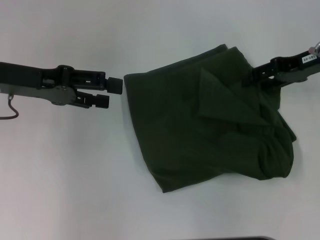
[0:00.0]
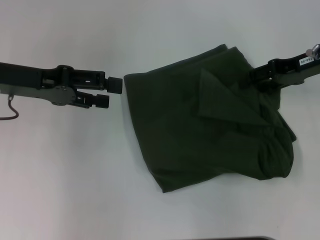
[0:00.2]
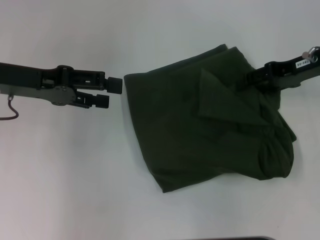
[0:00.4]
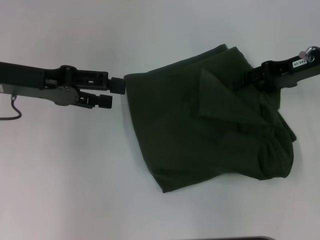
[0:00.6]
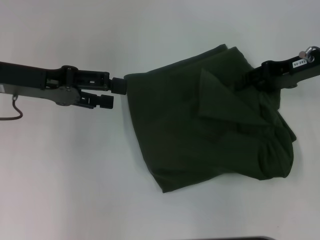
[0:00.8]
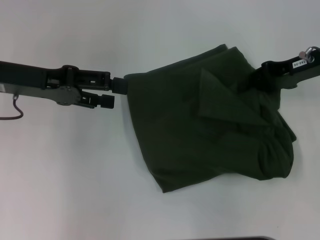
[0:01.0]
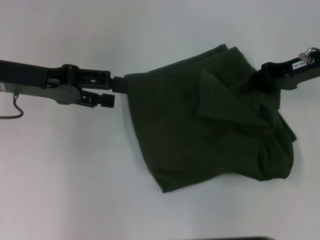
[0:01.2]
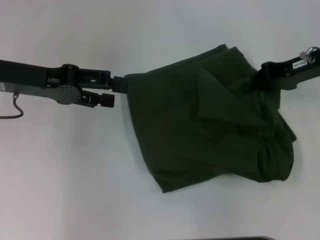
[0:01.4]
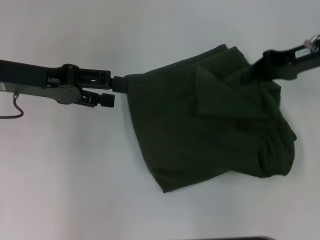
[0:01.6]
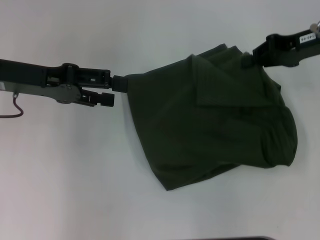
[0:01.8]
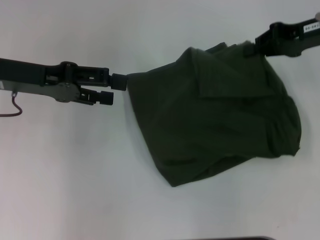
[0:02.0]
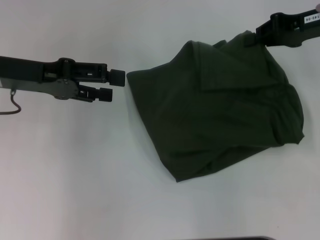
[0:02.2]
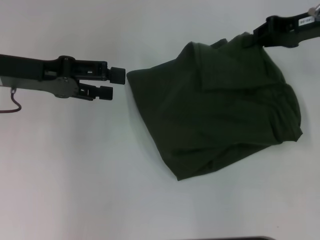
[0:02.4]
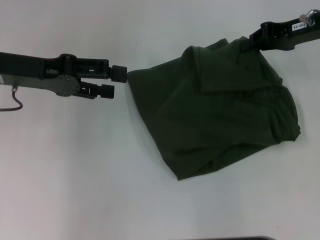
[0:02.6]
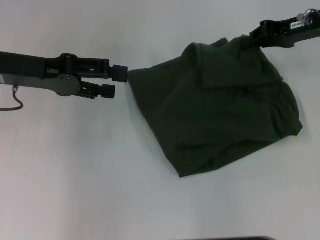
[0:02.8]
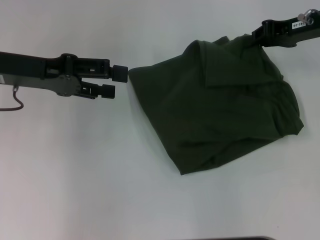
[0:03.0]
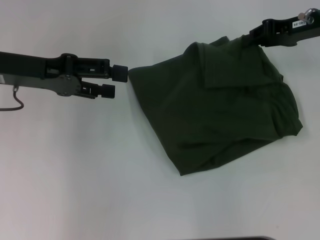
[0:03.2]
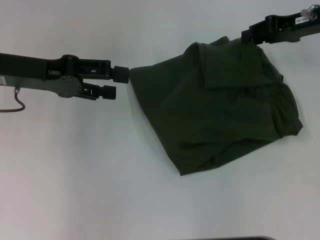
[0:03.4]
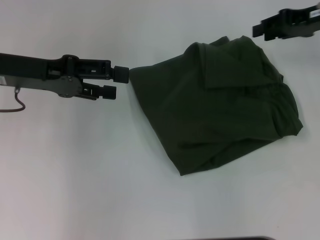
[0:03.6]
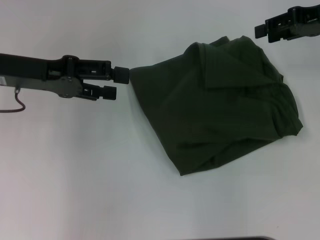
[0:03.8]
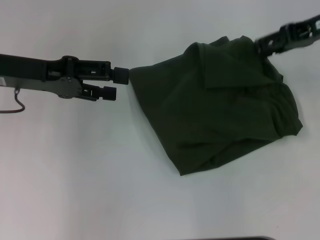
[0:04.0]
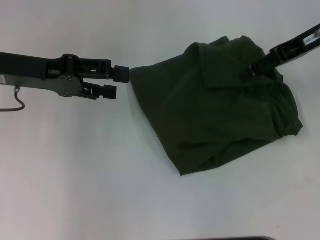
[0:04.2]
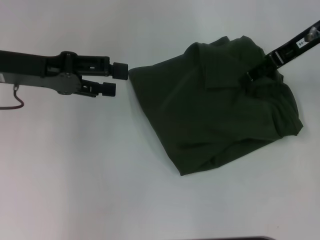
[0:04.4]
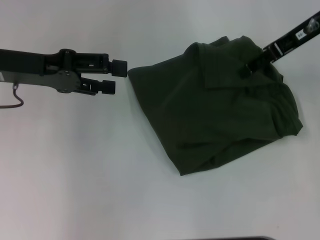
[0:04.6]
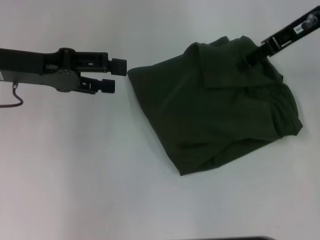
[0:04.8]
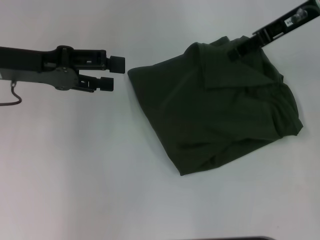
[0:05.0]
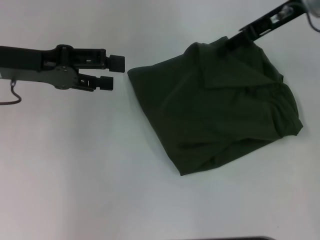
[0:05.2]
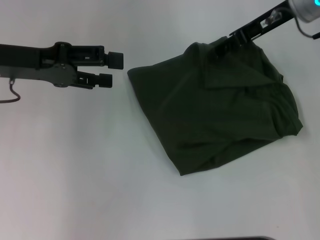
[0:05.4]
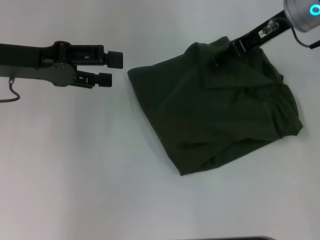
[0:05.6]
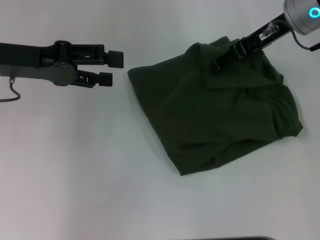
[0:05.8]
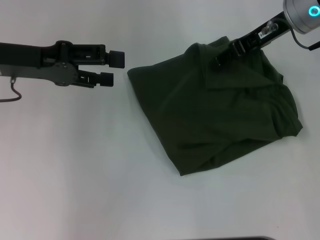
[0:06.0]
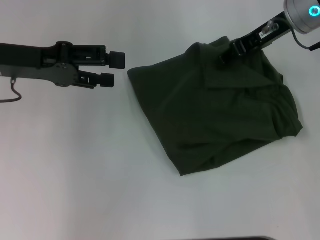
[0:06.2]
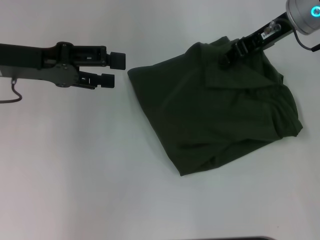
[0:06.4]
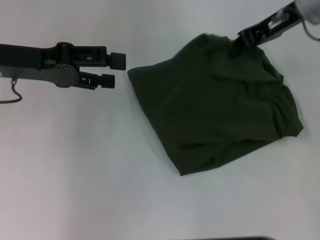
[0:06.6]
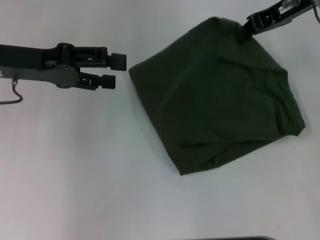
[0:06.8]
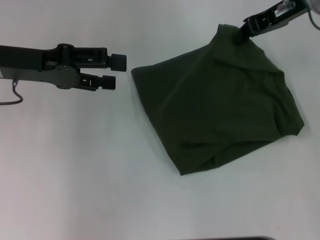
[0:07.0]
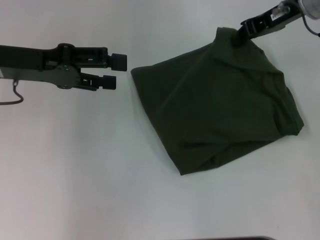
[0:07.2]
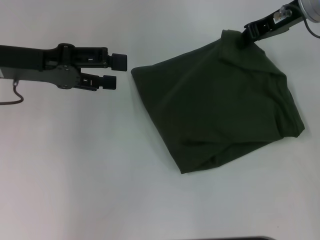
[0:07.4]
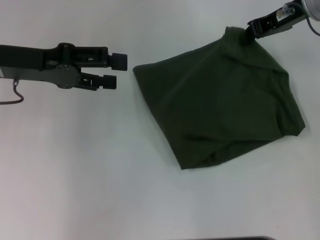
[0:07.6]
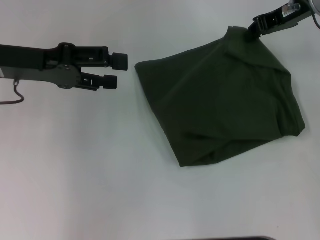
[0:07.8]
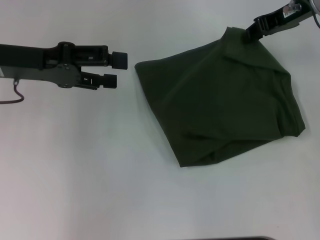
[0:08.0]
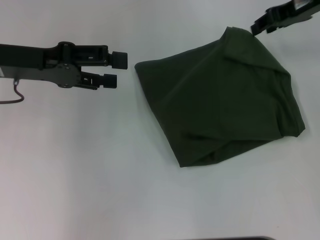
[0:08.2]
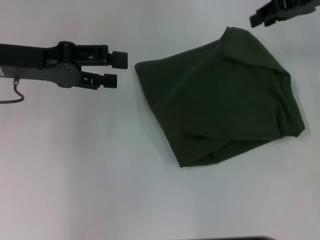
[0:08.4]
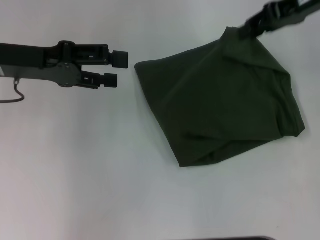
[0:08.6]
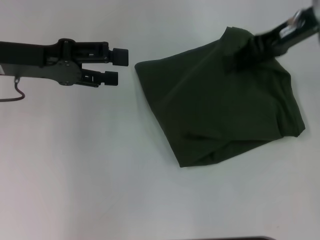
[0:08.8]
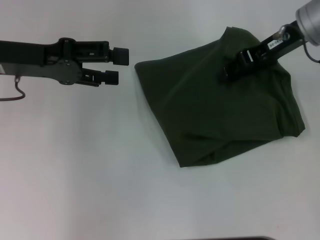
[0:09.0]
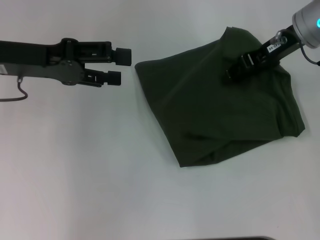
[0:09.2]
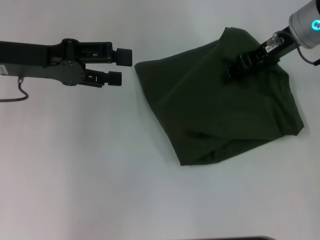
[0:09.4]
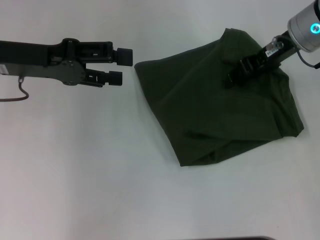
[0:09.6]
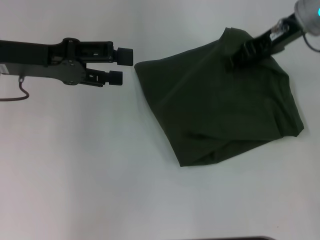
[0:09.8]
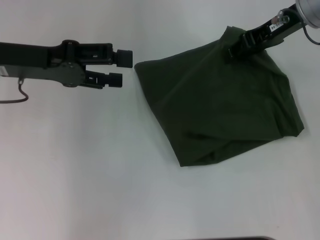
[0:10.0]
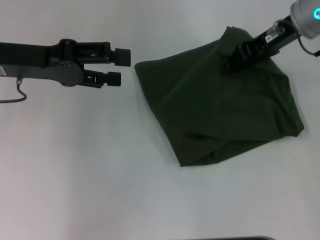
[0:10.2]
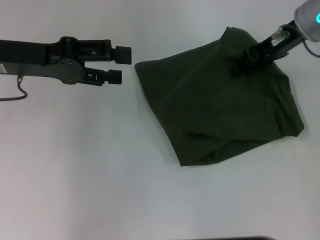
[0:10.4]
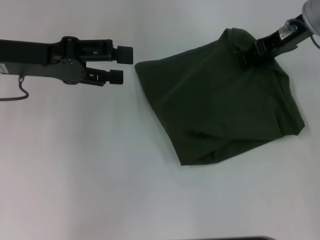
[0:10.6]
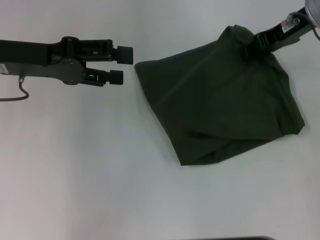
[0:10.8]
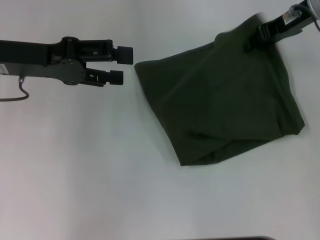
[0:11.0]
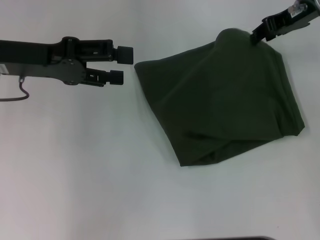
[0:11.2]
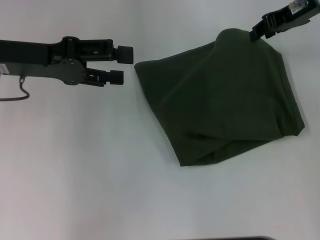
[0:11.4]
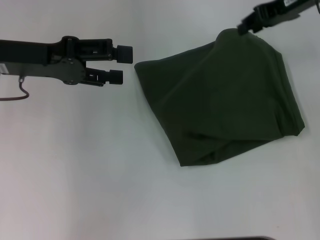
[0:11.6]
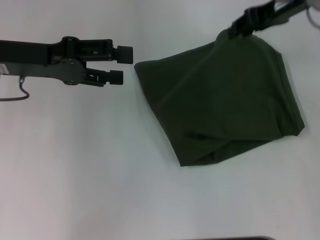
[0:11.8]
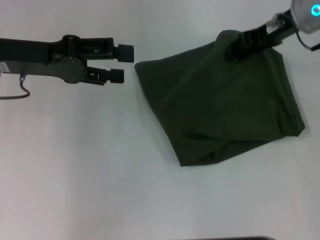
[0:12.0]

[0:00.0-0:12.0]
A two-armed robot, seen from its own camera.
0:00.0 to 0:01.6: The right gripper closes its fingers.
0:03.0 to 0:04.4: The right gripper changes place by some 5 cm, and opens its fingers.
0:04.4 to 0:06.0: The grippers make only small movements.
0:06.0 to 0:07.6: The right gripper closes.
0:07.6 to 0:09.0: The right gripper opens its fingers.
0:09.0 to 0:10.4: The grippers move only a little.
0:10.4 to 0:12.0: The grippers make only small movements.

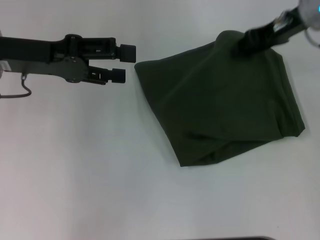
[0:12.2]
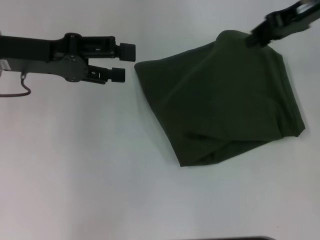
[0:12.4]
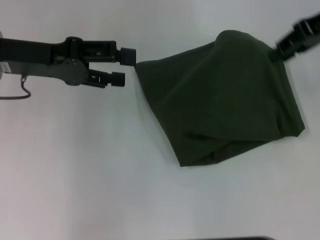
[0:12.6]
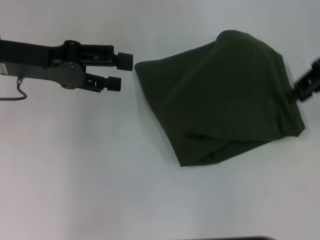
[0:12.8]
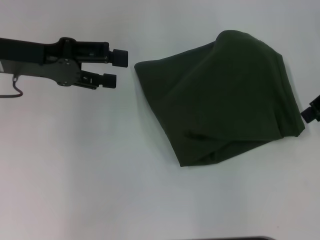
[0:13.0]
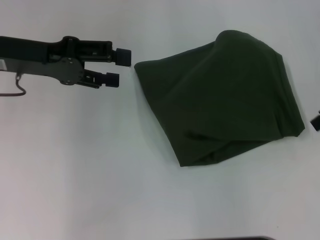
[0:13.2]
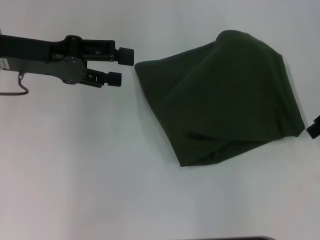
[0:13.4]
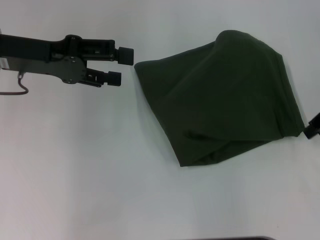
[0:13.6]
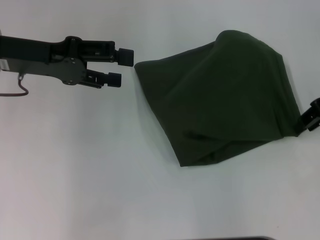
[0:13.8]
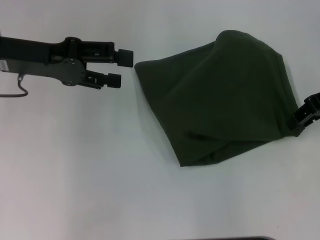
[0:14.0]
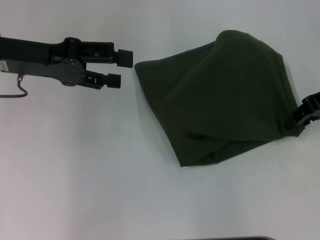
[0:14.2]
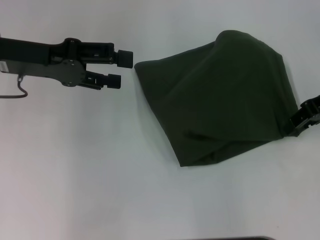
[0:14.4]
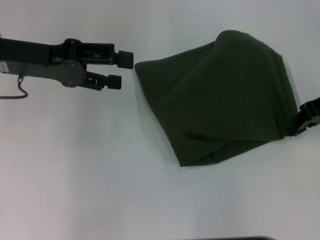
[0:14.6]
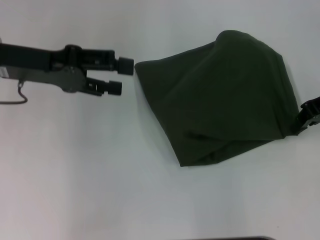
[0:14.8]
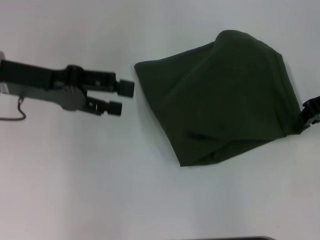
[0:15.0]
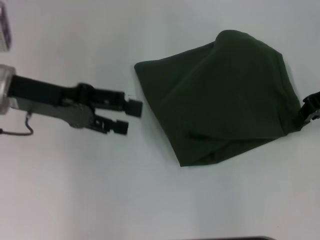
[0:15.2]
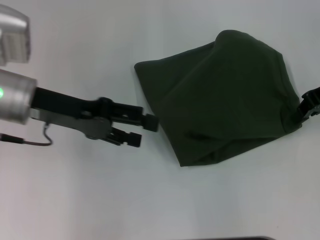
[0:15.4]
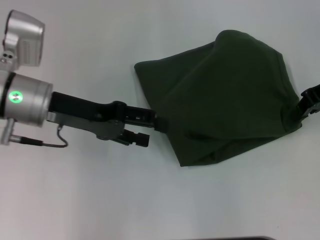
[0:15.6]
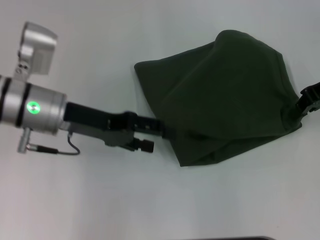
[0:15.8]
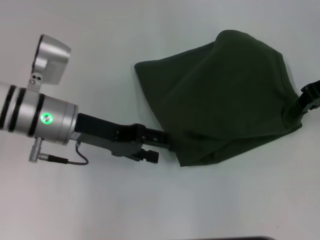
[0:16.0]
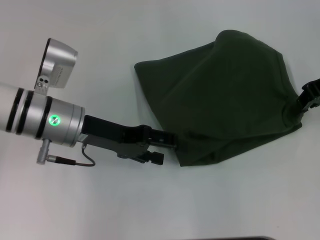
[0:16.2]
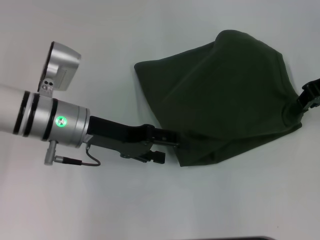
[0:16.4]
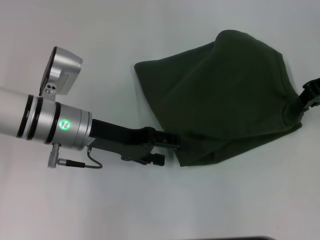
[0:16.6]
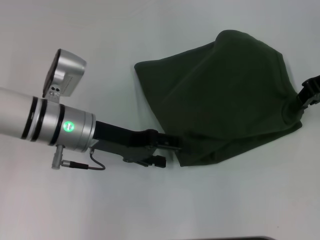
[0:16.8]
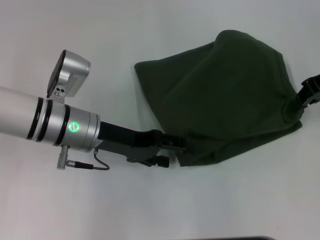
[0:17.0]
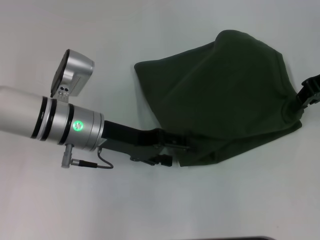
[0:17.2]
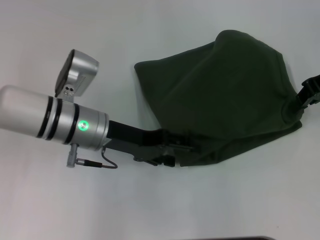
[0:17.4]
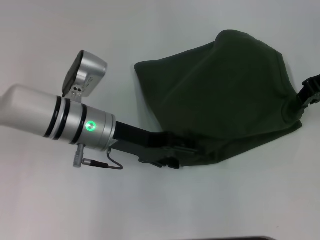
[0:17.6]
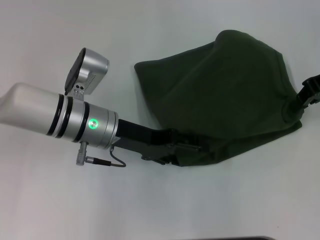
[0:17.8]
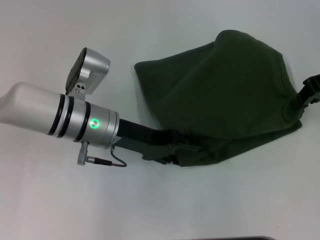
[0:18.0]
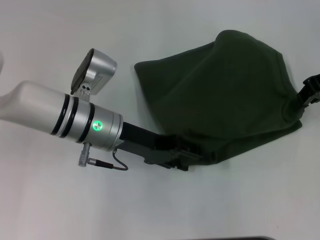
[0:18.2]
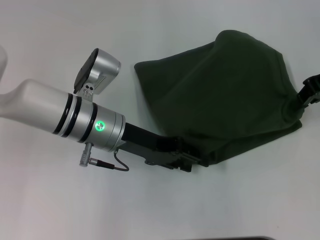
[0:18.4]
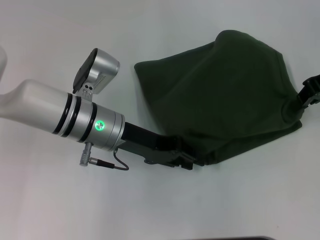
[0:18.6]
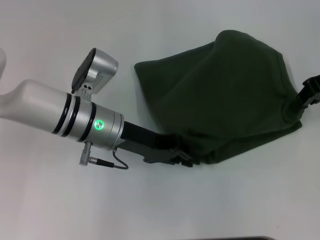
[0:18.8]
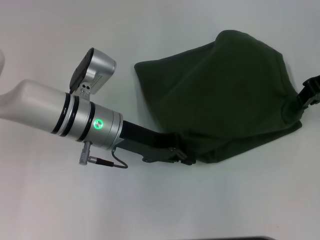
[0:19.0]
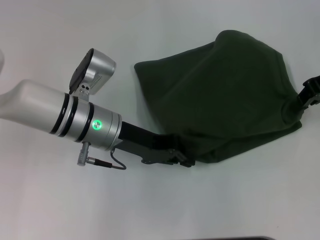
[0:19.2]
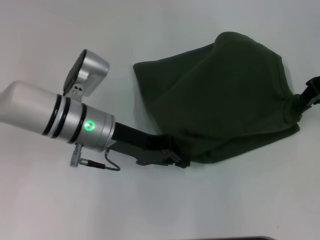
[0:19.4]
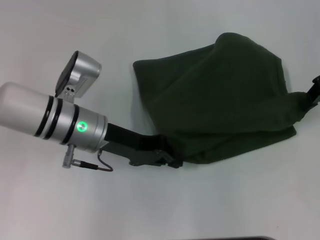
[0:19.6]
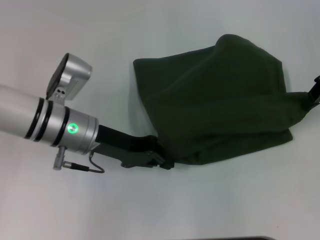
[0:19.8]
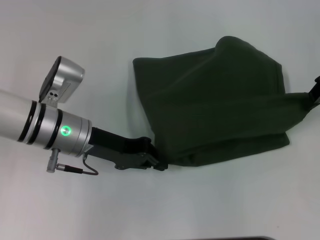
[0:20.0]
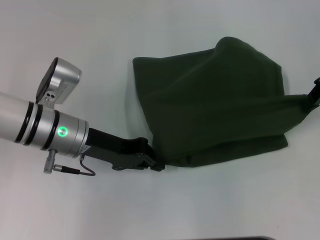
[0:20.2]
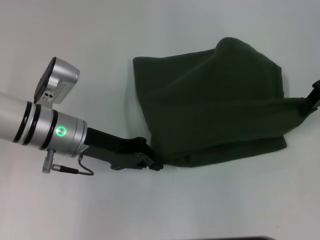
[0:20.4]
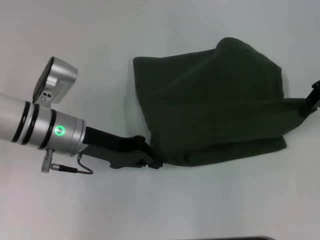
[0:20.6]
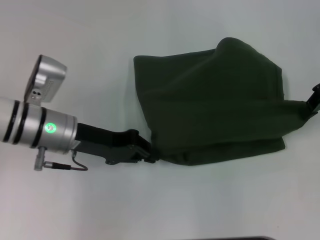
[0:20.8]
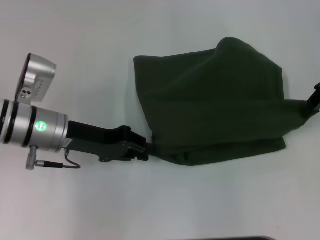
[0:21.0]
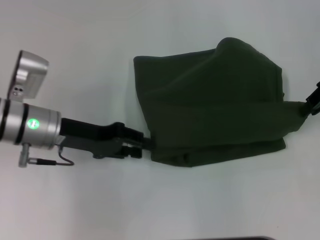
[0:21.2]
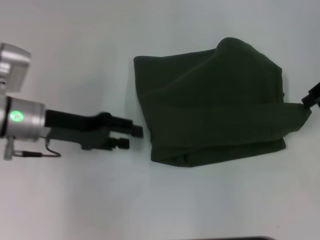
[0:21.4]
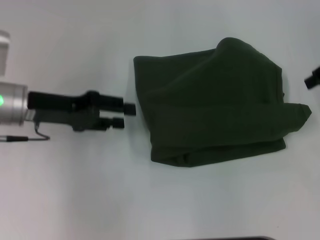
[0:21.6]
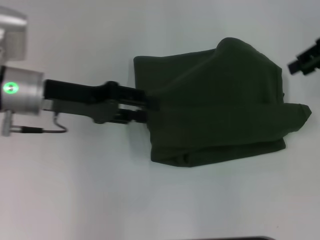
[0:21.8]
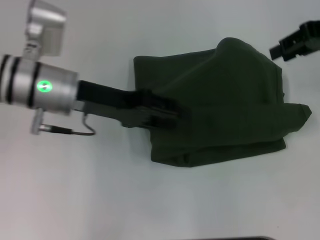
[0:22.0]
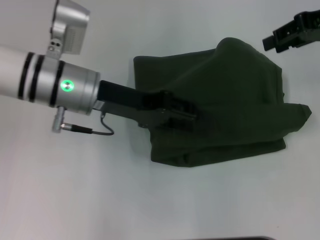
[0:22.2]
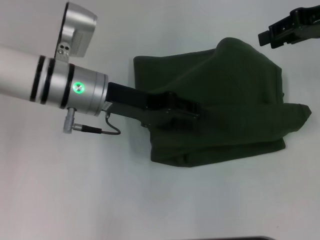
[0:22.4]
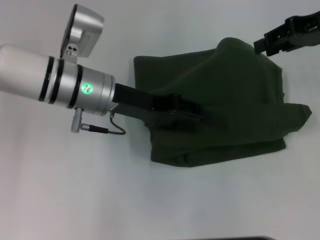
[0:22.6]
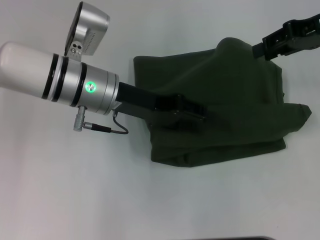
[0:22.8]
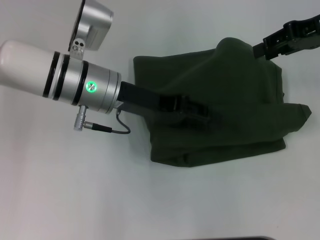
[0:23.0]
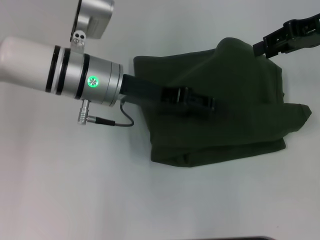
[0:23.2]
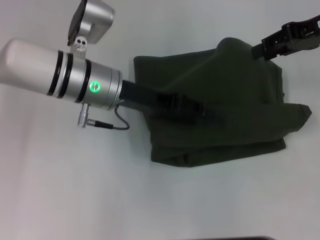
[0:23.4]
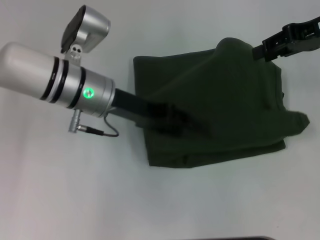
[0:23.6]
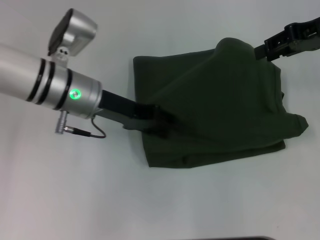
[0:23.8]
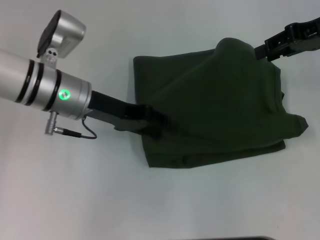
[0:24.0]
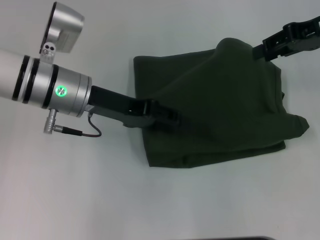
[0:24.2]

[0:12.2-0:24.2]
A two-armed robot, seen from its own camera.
0:12.2 to 0:13.8: The right gripper goes some 10 cm backward and to the right.
0:13.8 to 0:15.2: The right gripper closes up.
0:15.2 to 0:16.6: The left gripper is displaced to the right and downward by some 10 cm.
0:16.6 to 0:18.2: There are only small adjustments of the grippers.
0:18.2 to 0:19.8: The left gripper closes up.
0:19.8 to 0:21.2: The left gripper heads to the left, covering some 5 cm.
0:21.2 to 0:22.6: The left gripper goes roughly 10 cm to the right, and opens up.
0:22.6 to 0:24.2: The grippers stay close to where they were, moving slightly.
